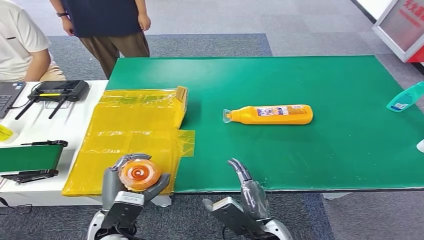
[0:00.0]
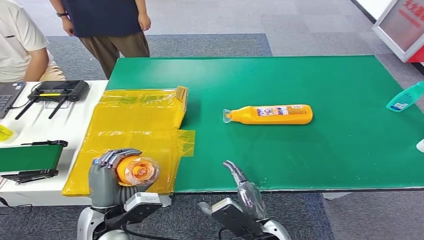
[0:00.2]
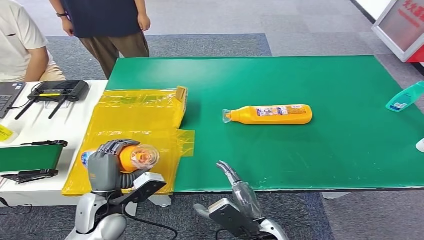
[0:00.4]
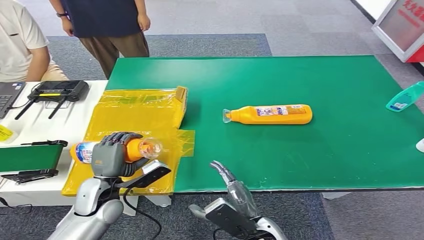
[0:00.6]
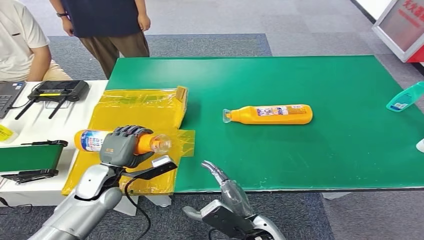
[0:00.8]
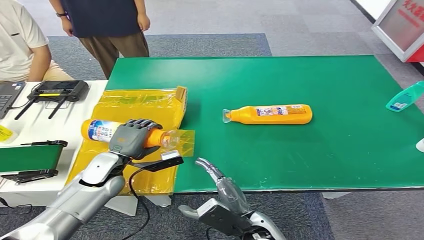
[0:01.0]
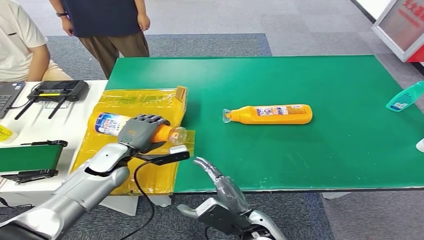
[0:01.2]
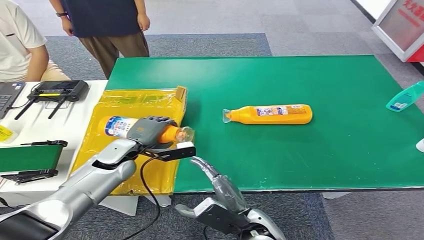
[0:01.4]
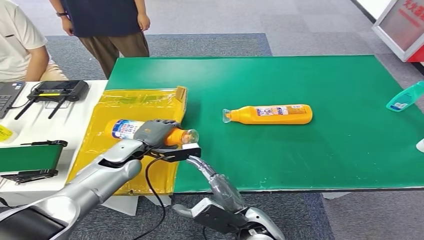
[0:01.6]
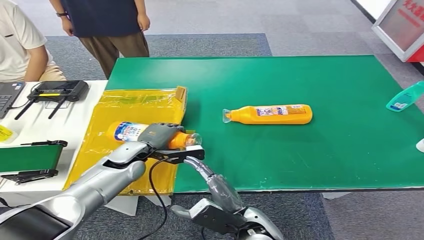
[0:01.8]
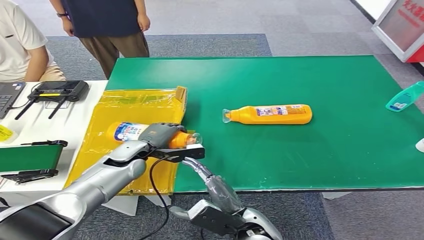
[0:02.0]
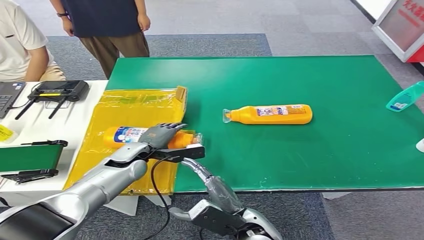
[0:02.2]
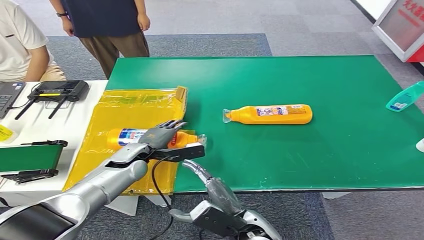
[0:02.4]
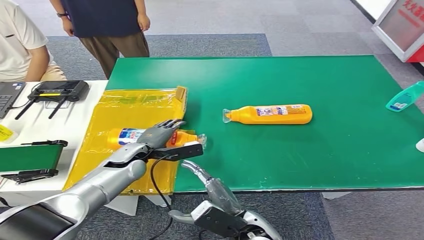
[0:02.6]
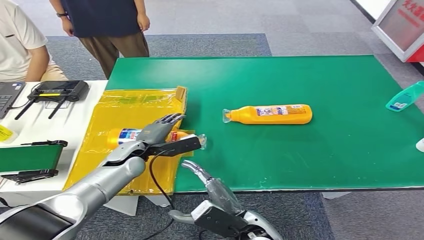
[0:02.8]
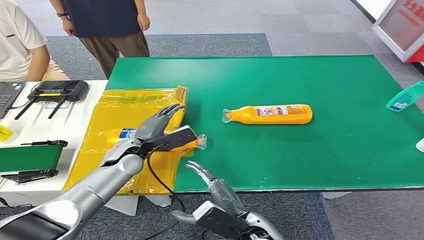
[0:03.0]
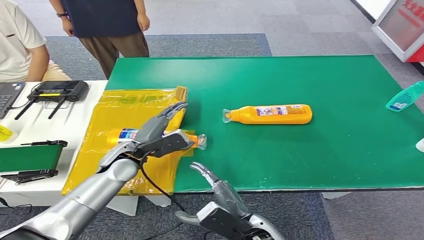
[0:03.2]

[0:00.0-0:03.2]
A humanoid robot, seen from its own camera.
Step, 0:00.0 to 0:02.8: Turn the bottle to the front side.
0:00.0 to 0:01.6: The left hand moves forward, roughly 20 cm.
